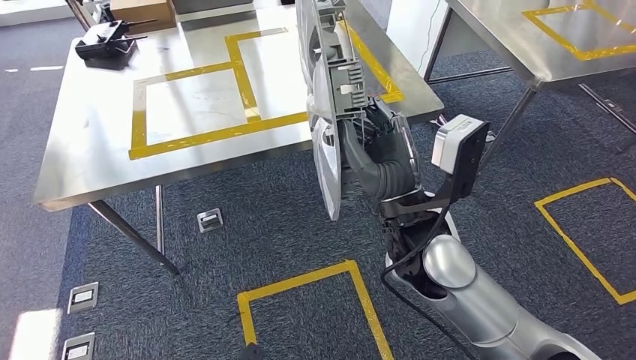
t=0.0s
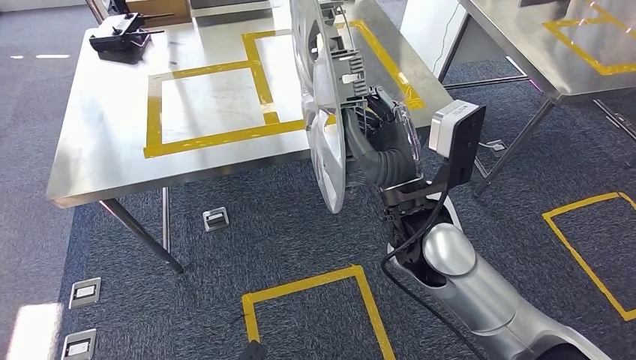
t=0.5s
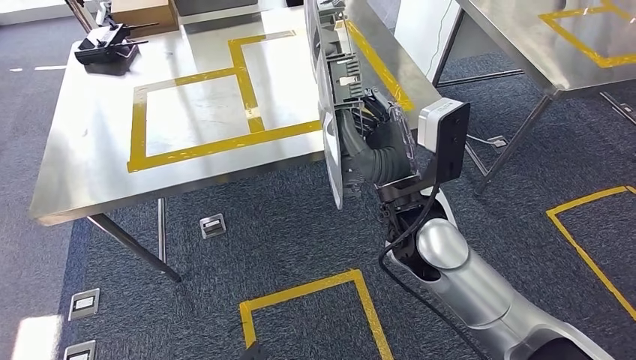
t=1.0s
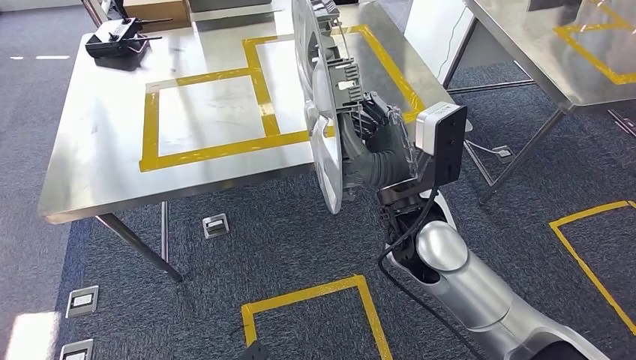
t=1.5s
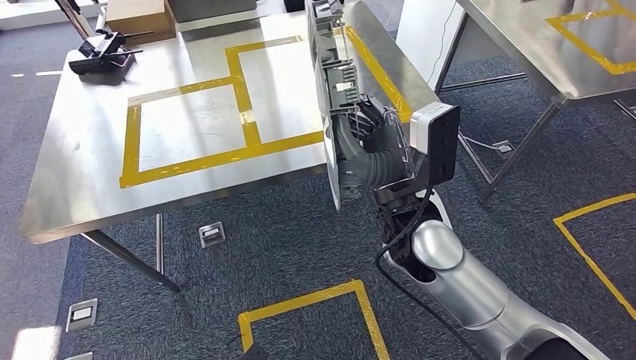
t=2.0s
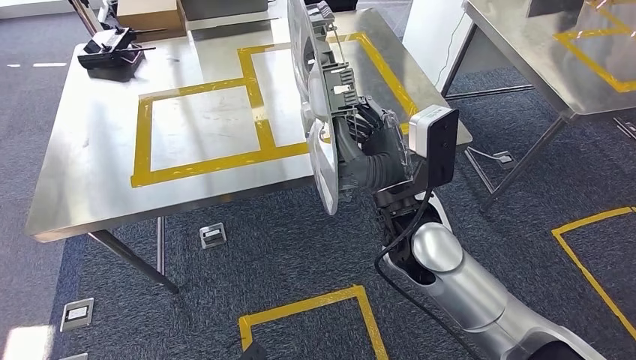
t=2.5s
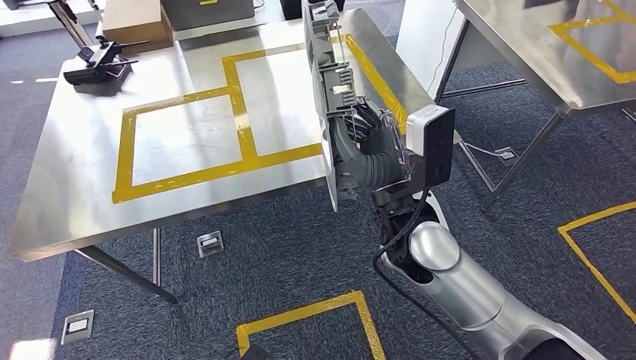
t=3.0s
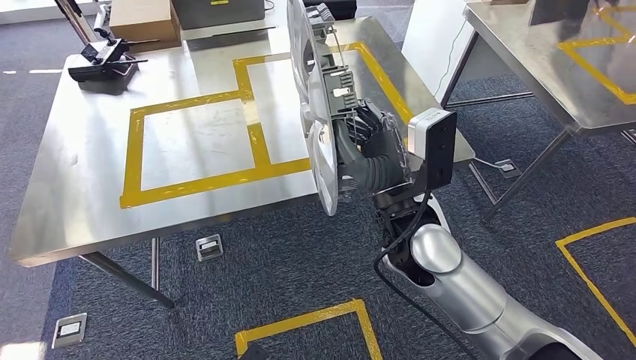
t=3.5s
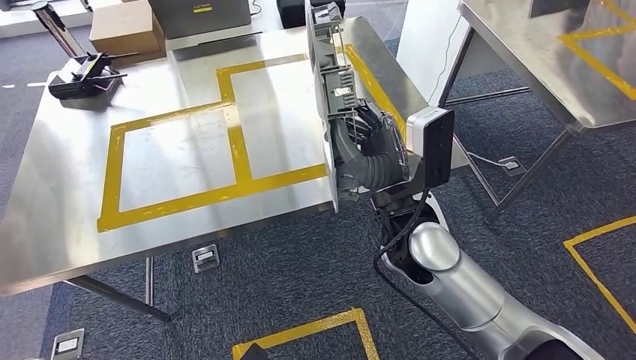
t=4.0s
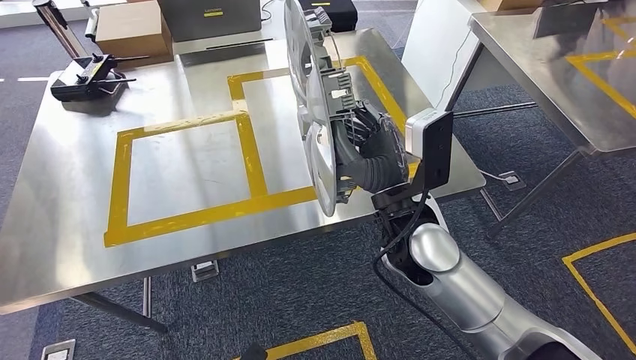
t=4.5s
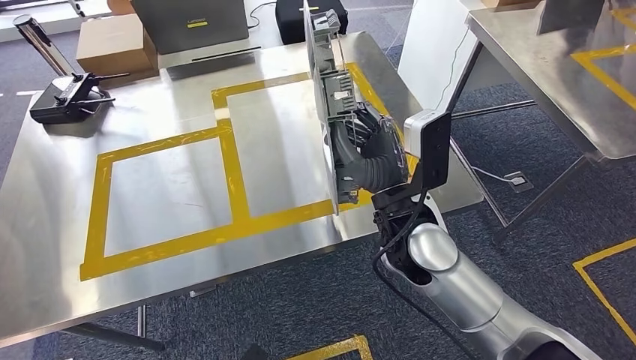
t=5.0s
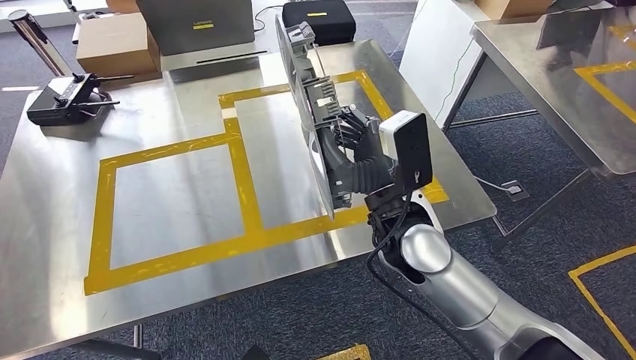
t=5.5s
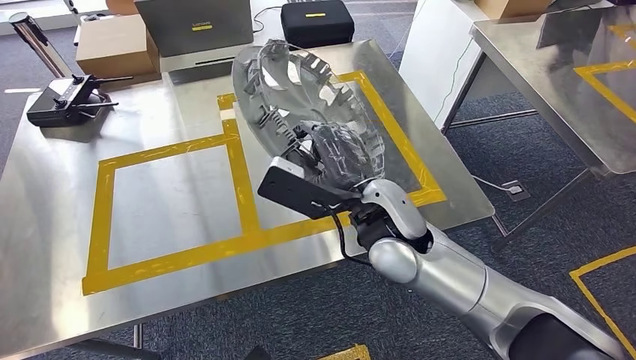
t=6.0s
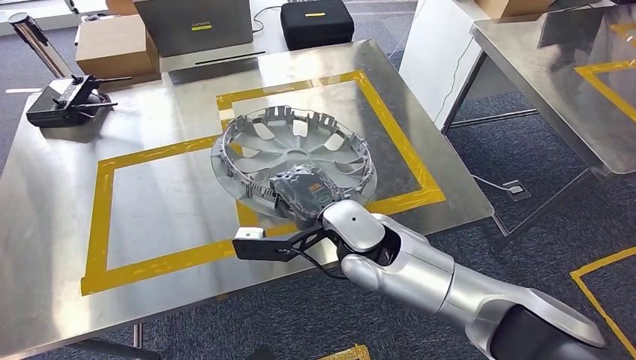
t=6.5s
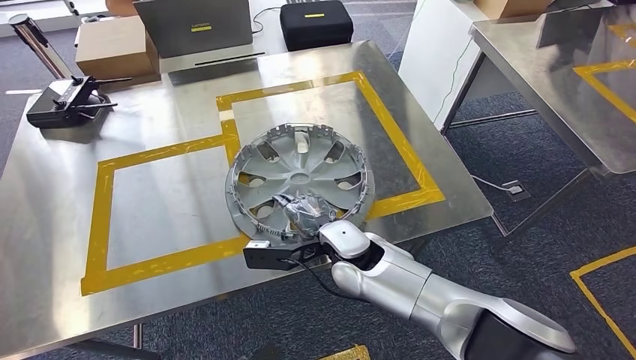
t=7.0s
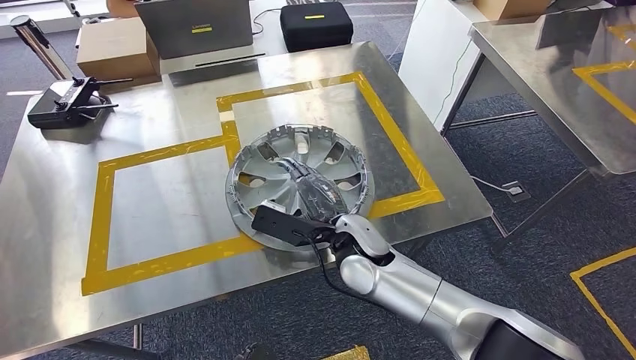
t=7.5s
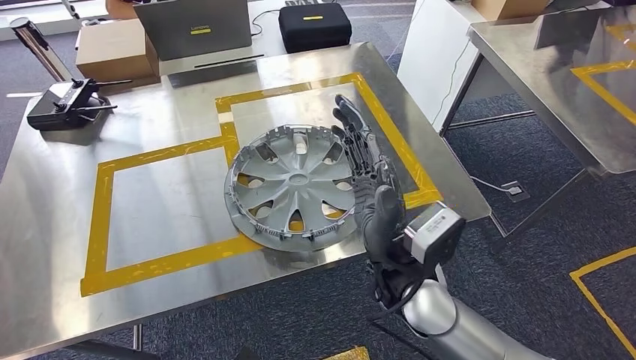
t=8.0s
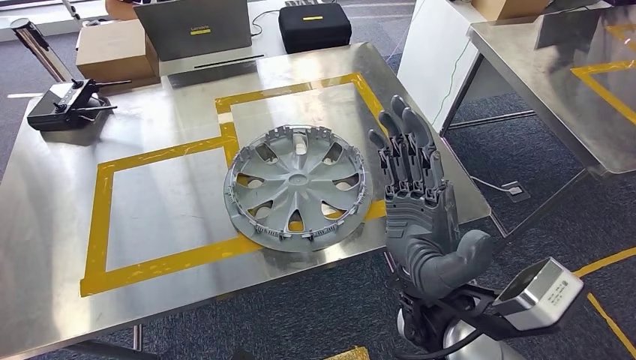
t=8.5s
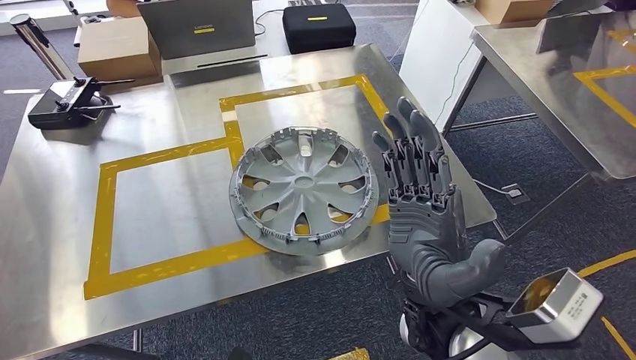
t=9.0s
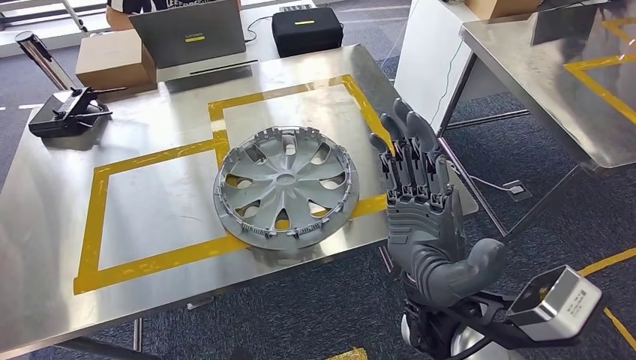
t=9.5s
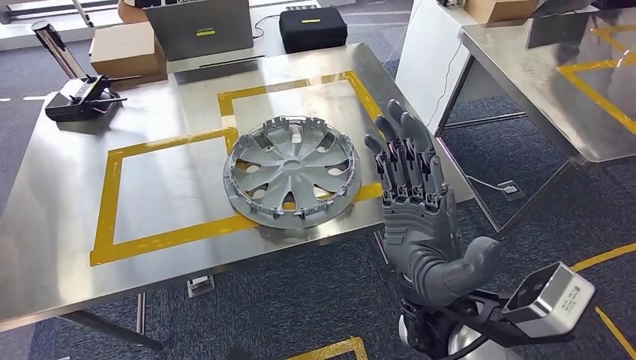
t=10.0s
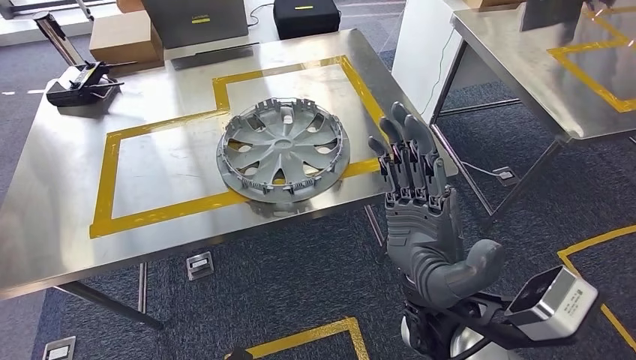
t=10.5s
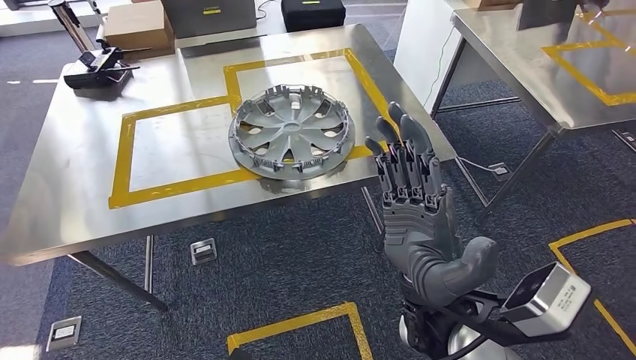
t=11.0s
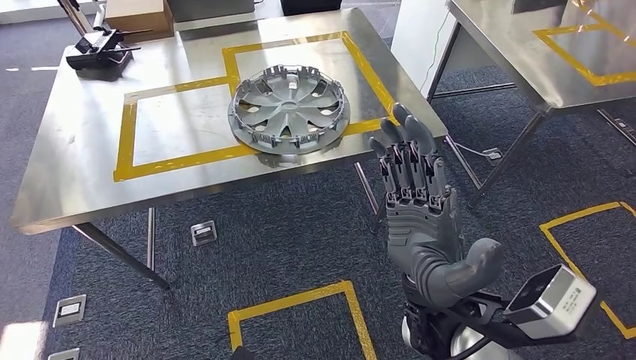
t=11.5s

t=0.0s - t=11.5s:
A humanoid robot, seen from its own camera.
Step, t=0.0s - t=5.0s: Move the large material to the workbench.
Step, t=5.5s - t=10.0s: Insert the large material into the corresponding slot on the workbench.

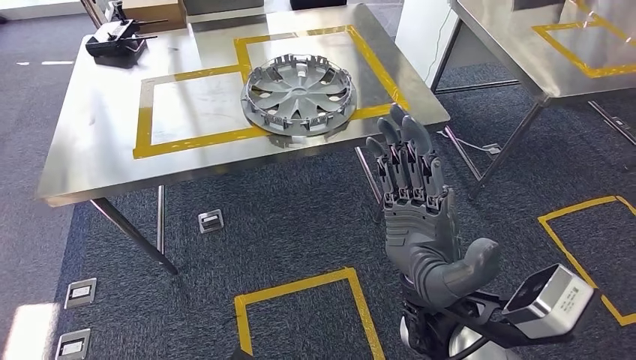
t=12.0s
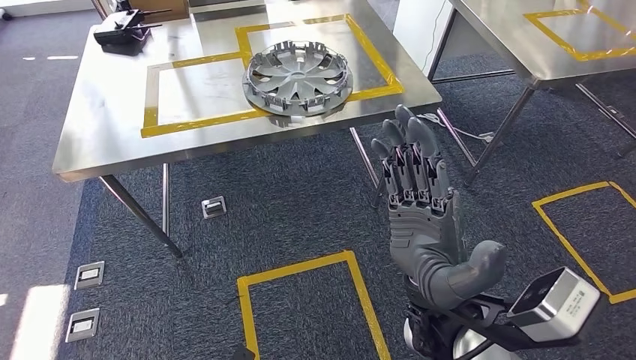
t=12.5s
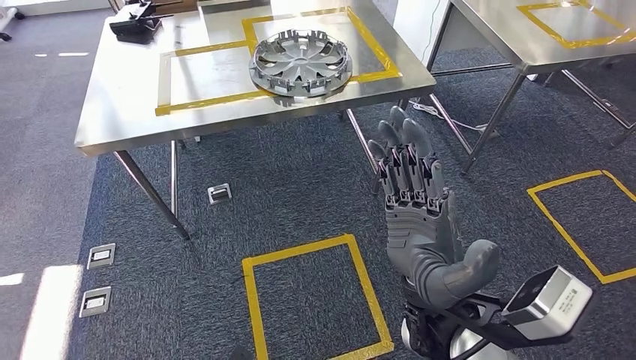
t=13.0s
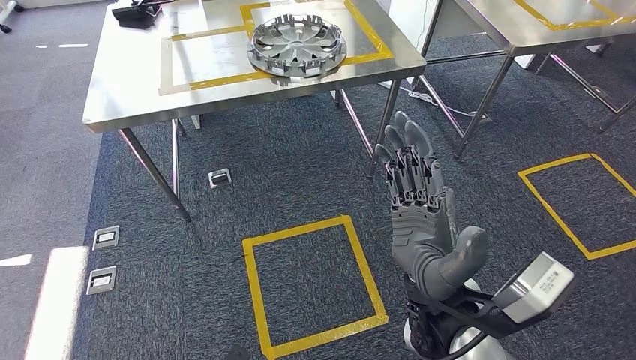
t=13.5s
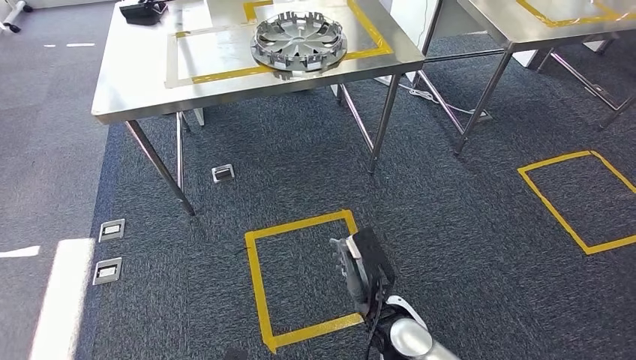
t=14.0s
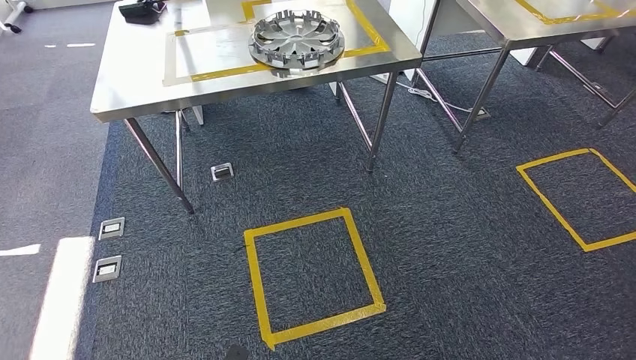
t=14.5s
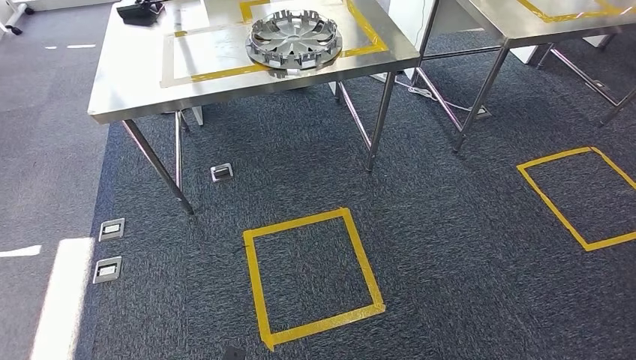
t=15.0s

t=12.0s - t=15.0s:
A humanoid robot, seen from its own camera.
Step, t=12.0s - t=15.0s: Move to the initial position of the shelf.
